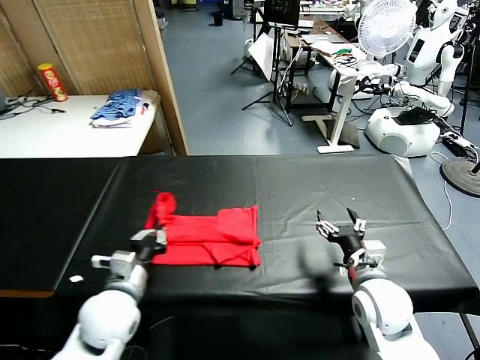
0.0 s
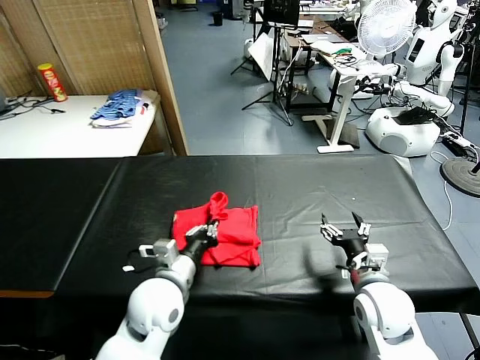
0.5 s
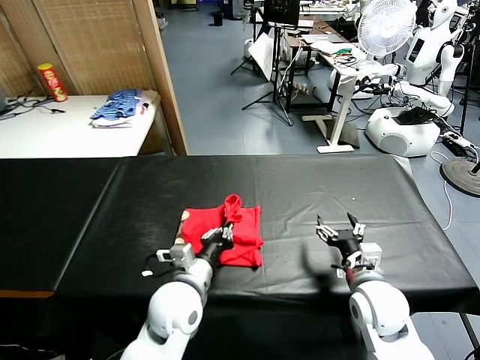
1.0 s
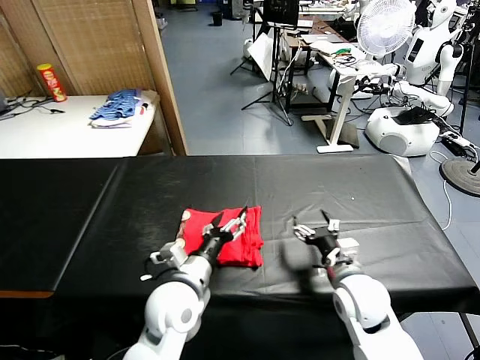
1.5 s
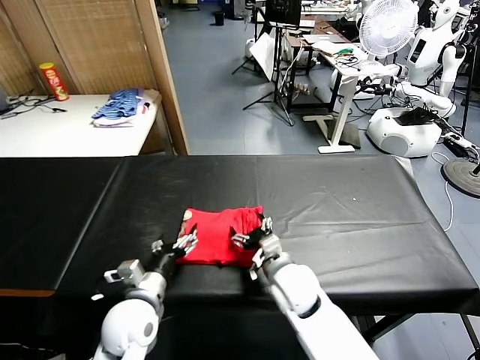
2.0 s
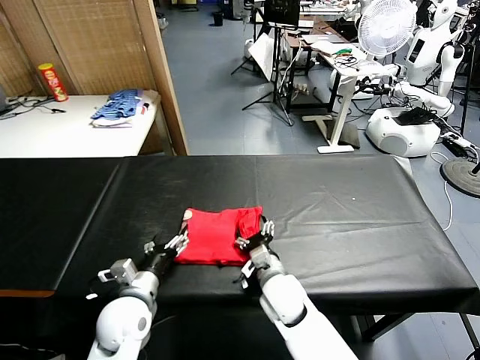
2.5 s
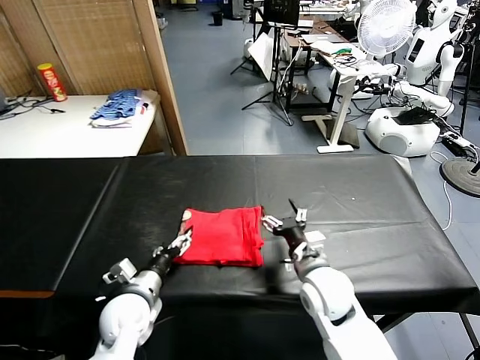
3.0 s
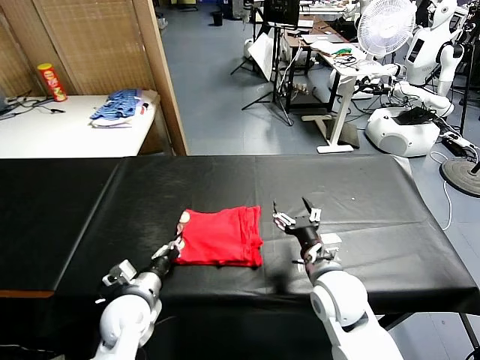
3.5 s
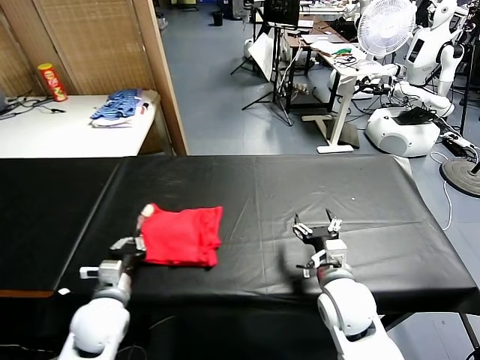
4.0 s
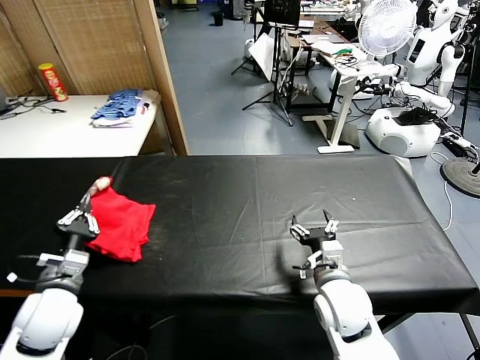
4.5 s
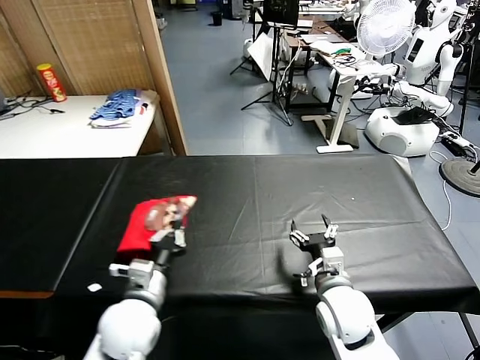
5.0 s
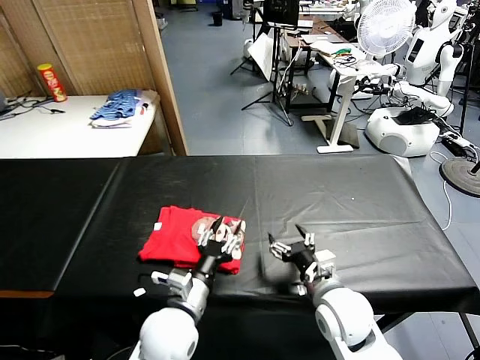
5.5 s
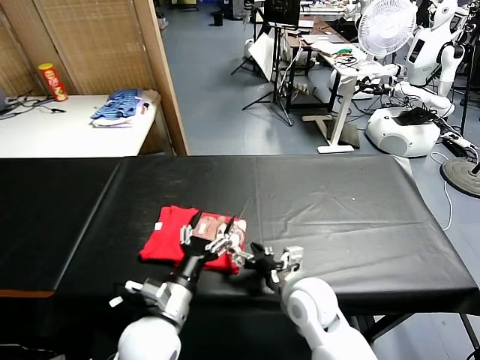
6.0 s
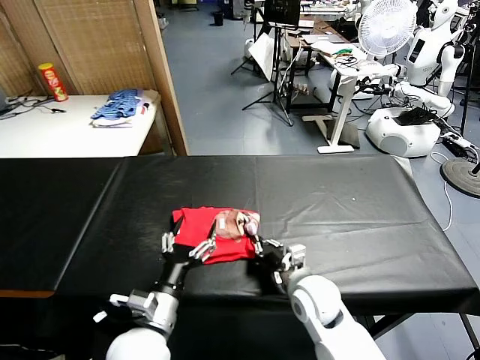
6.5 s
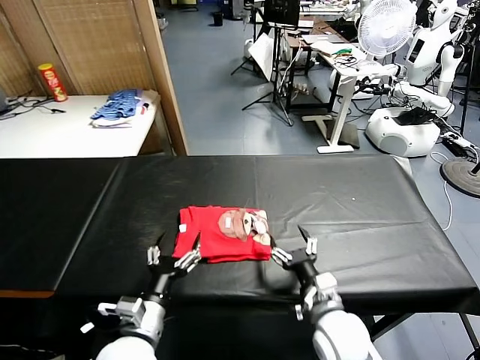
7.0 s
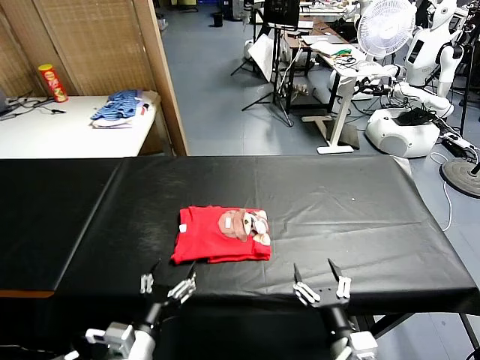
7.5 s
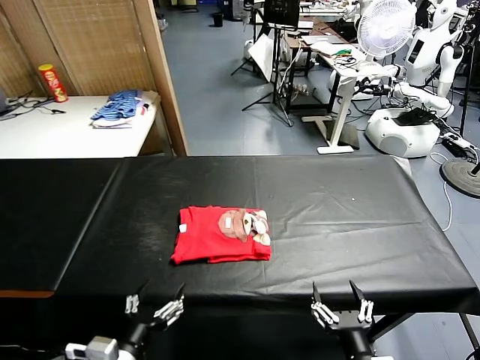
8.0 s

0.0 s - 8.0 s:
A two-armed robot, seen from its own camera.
Task of the whole recording: fold and organize the clothes.
Step, 0.0 s - 1.5 s: use the left gripper to drag the left edge of the fabric to the left and folds it over the right edge.
Step, 2.0 s - 5.5 s: Flip the folded clothes over with left gripper.
Step, 6.0 s - 6.5 s: Drag the clothes to the center of the table.
0.0 s - 2.0 s: The left gripper reaches roughly 15 cm to the right, then returns, and opens; the right gripper travels to the left by some 15 cm.
2.0 s - 4.0 s: The left gripper travels to the left by approximately 5 cm, and closes up; the right gripper is displaced to the right by roughly 10 cm.
4.0 s - 6.0 s: The left gripper shifts roughly 10 cm to the right, and opens its fingers. Meanwhile the right gripper is displaced to the left by some 5 cm.
6.0 s - 8.0 s: The right gripper is displaced backward by about 20 cm, and closes, then reopens, while the left gripper travels backward and to the left by about 15 cm.
